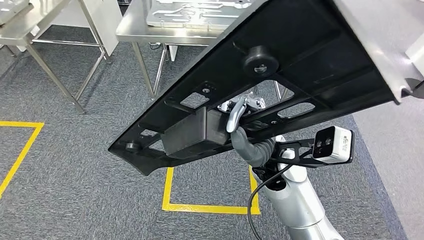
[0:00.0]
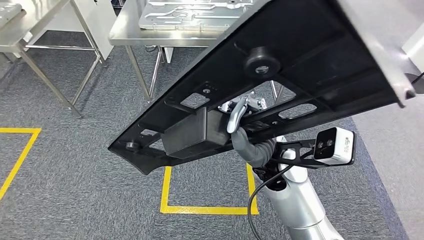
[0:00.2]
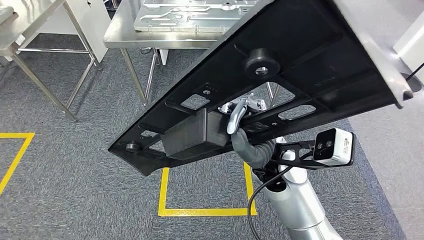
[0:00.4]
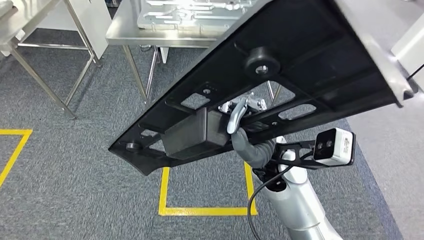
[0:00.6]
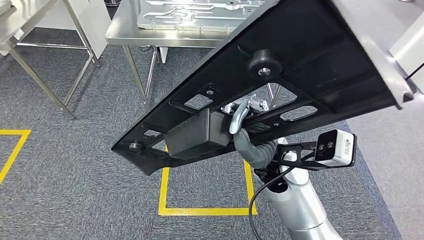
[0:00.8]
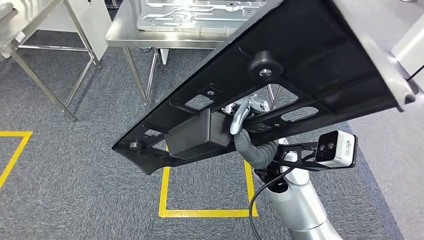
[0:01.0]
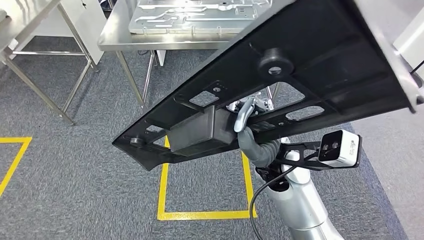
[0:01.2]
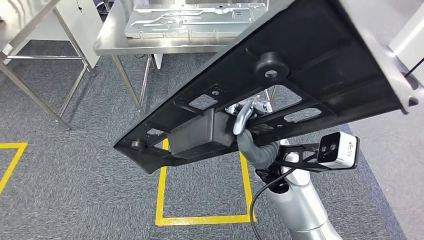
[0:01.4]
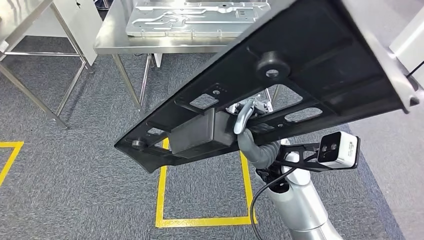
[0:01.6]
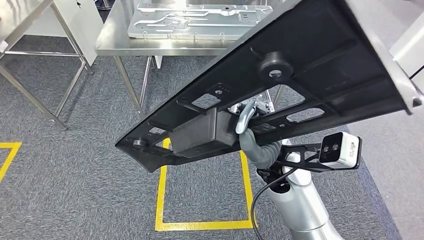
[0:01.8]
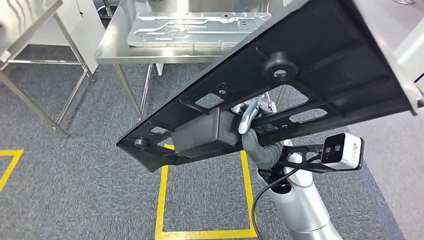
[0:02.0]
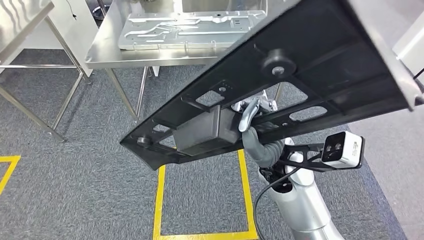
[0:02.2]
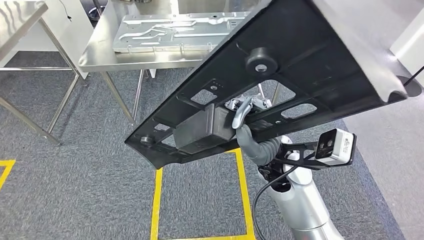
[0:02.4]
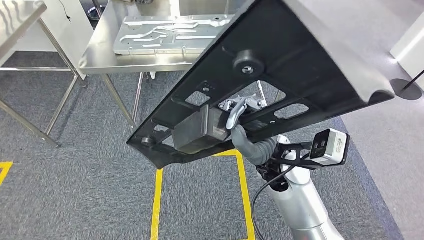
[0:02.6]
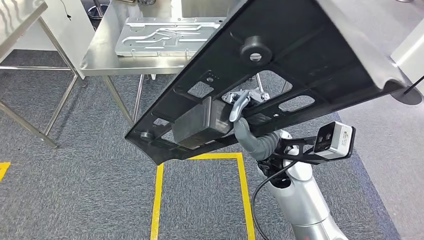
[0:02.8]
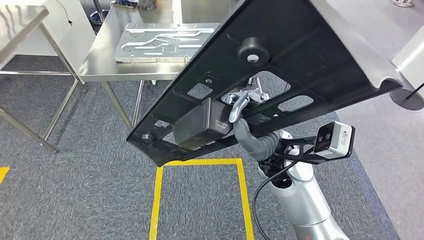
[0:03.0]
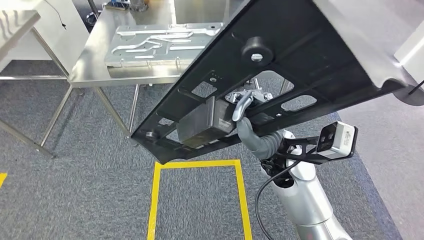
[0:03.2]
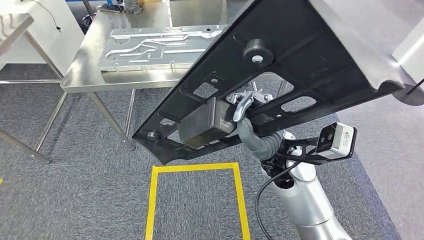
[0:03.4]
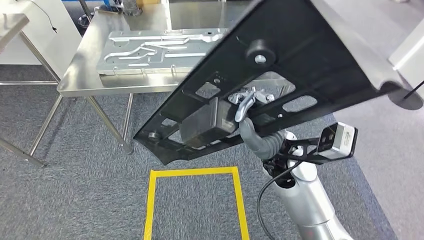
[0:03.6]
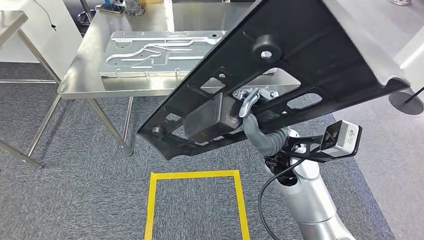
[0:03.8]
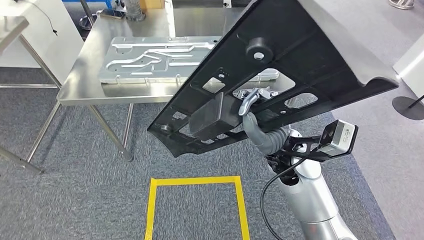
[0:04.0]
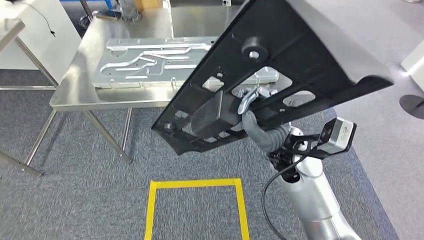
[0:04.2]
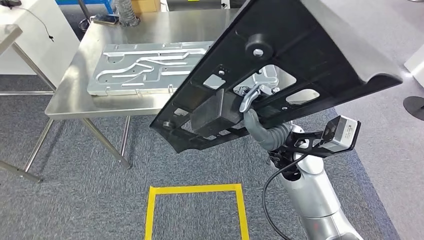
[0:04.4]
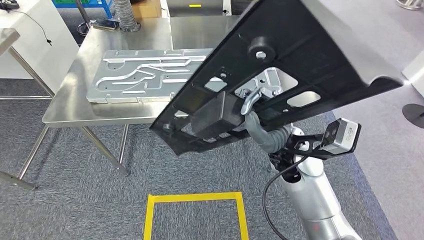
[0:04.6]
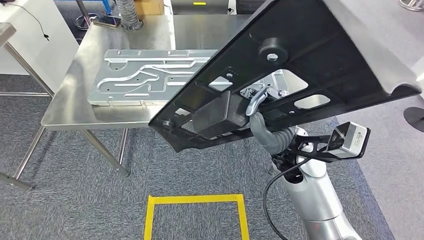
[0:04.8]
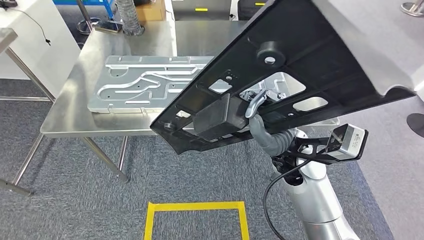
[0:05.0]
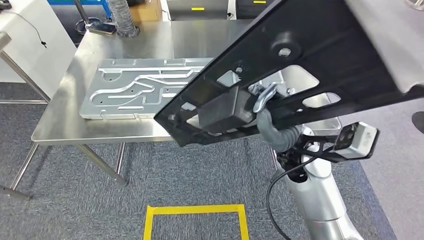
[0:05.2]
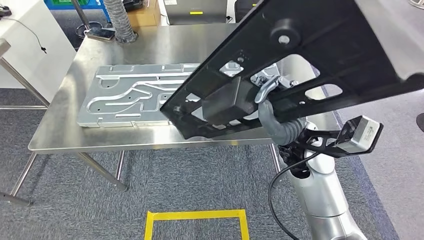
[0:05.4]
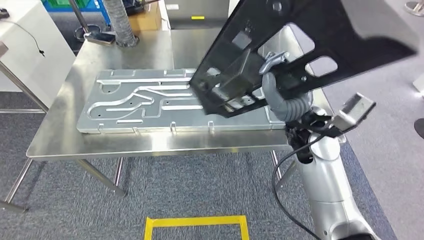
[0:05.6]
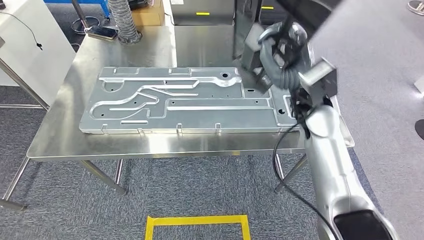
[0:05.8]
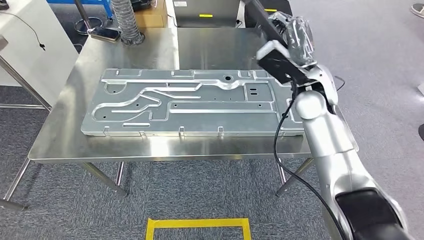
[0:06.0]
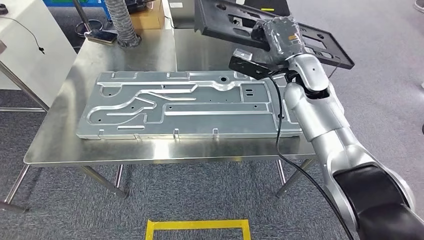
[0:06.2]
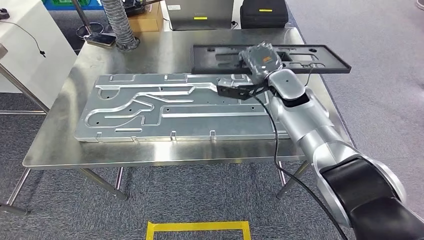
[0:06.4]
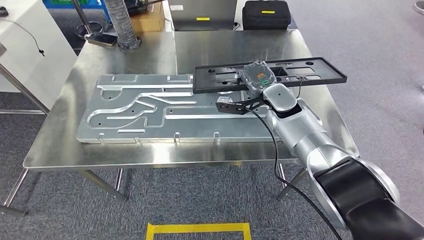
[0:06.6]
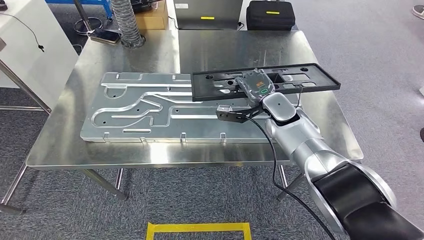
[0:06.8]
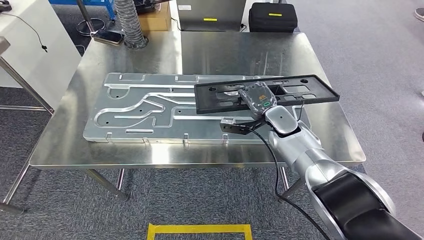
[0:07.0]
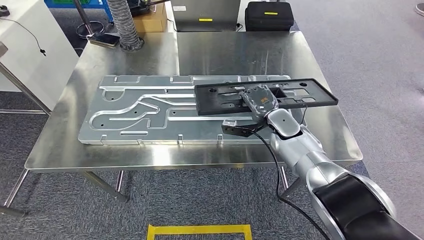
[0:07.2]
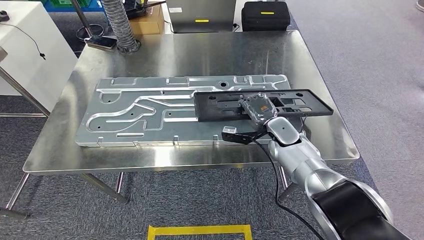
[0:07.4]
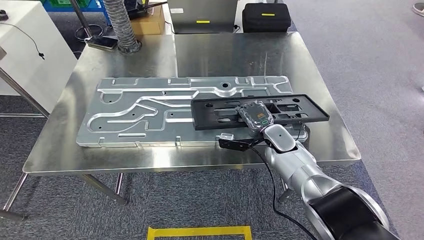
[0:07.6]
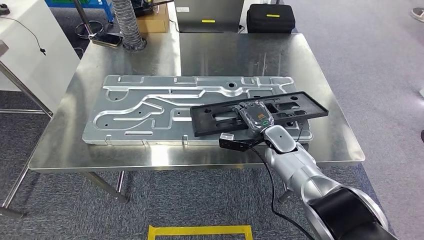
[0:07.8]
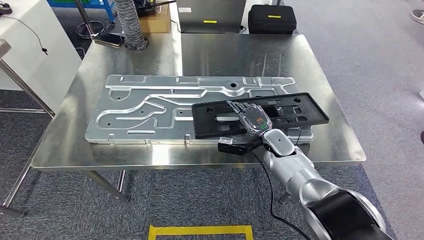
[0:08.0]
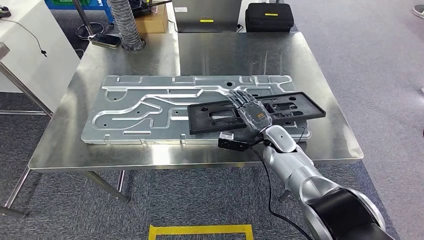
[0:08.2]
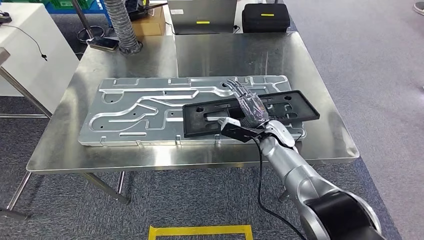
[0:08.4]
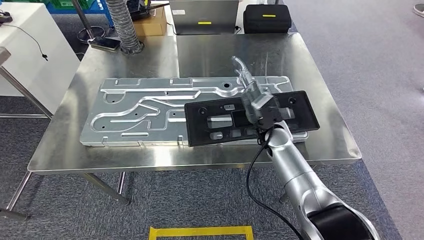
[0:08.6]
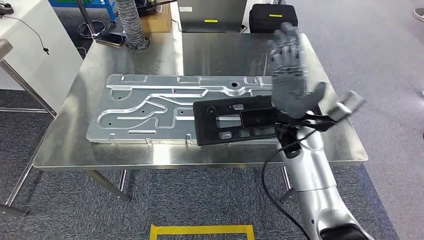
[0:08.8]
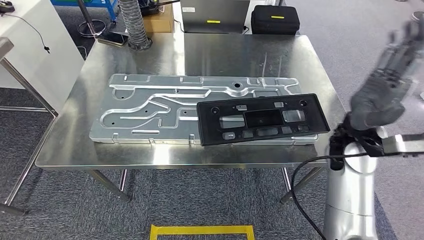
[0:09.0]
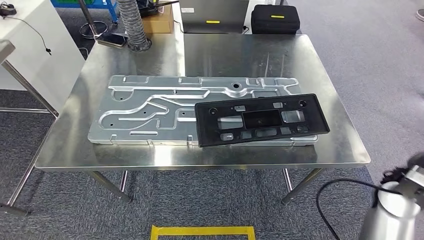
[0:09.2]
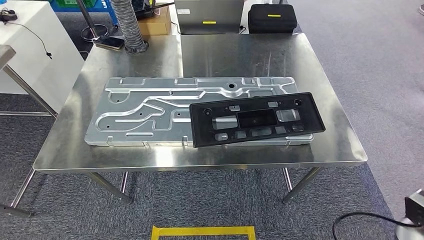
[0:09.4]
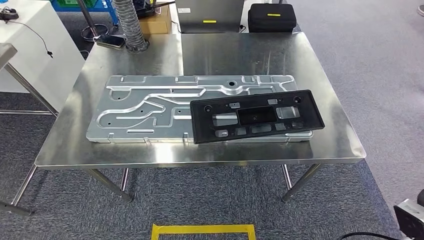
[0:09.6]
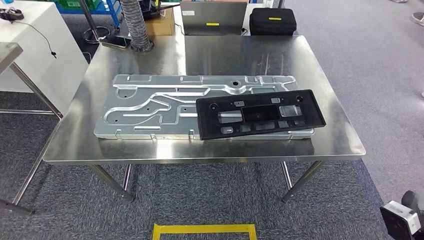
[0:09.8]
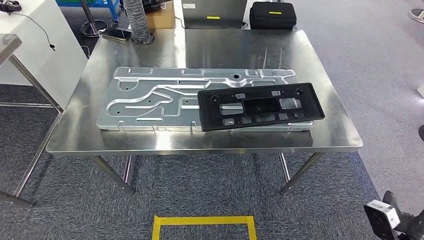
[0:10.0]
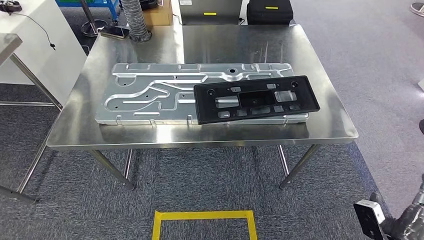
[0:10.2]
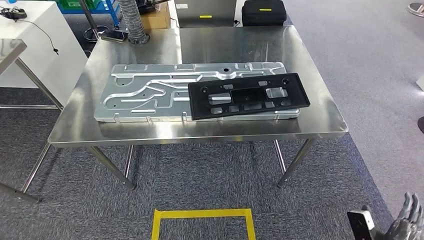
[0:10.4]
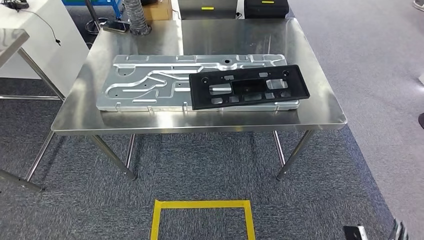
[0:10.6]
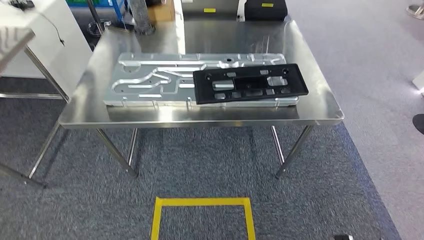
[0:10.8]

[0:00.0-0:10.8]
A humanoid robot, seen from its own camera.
Step, 0:00.0 to 0:06.4: Move the large material to the workbench.
Step, 0:06.8 to 0:09.6: Insert the large material into the corresponding slot on the workbench.

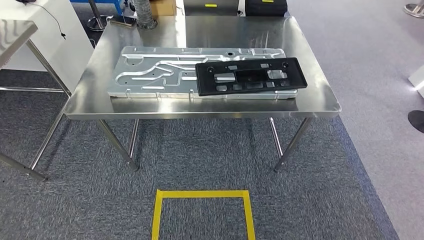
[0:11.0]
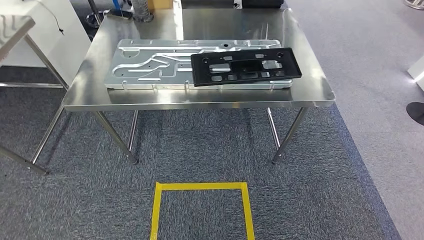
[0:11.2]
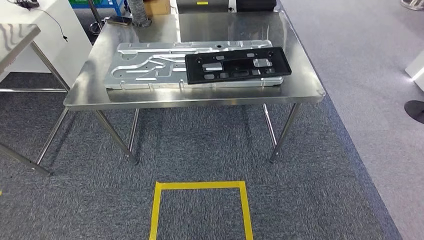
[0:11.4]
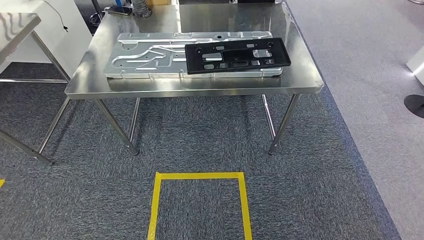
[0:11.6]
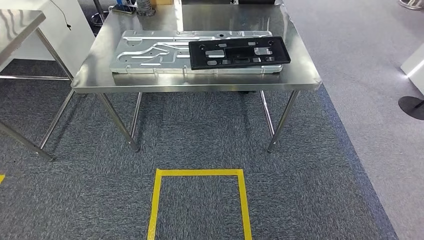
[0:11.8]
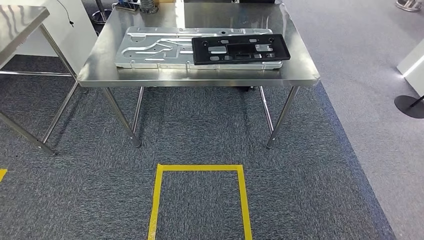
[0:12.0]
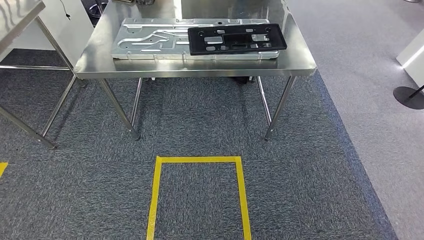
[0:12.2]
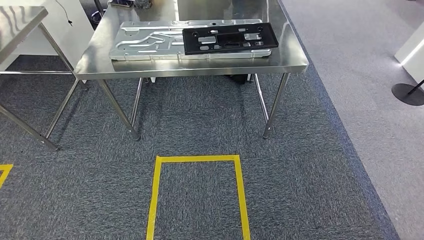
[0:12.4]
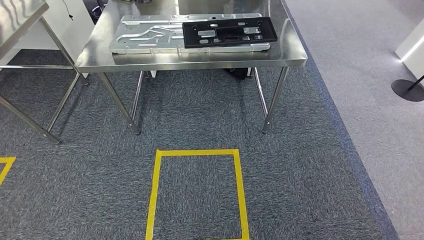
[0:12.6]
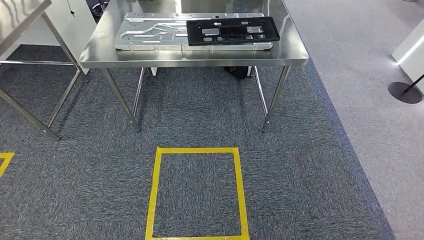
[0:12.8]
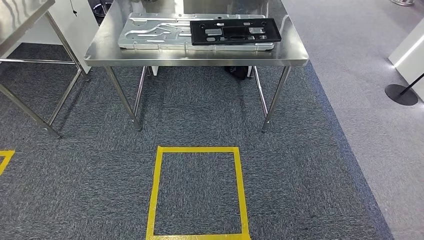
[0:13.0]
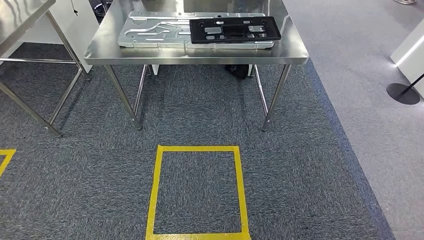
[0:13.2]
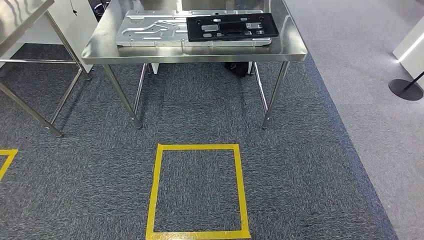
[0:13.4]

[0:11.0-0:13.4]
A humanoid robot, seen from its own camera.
Step, 0:11.0 to 0:13.4: Move to the initial position of the shelf.
0:12.2 to 0:13.4: The hands make only small movements.
